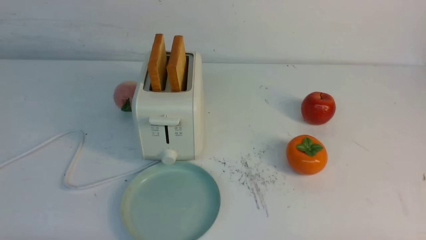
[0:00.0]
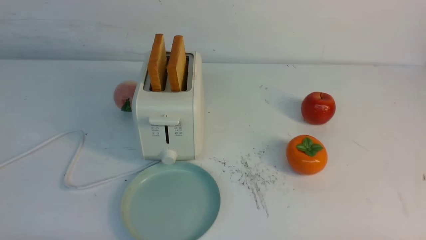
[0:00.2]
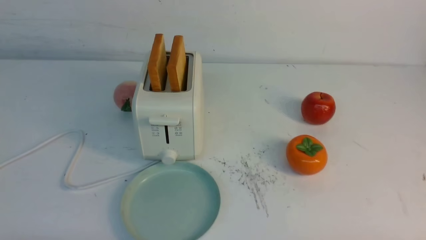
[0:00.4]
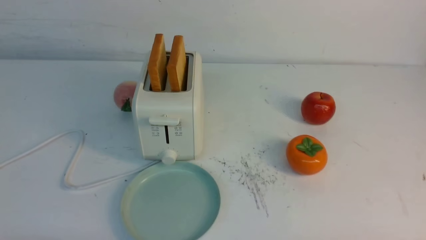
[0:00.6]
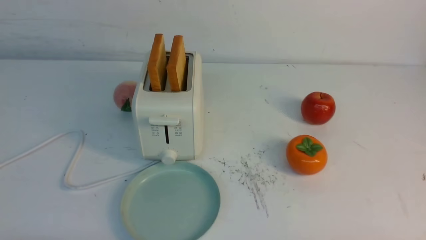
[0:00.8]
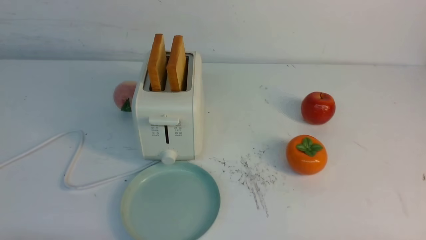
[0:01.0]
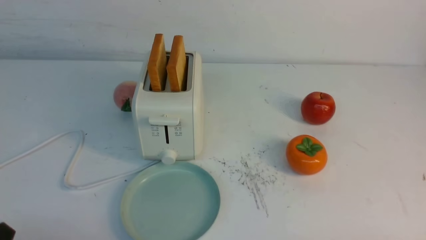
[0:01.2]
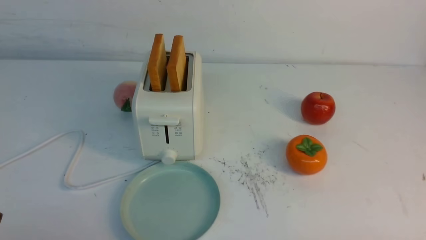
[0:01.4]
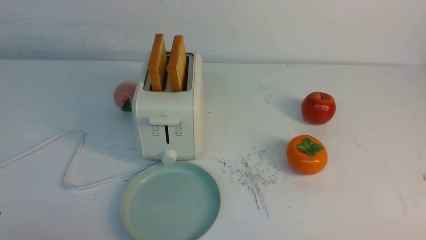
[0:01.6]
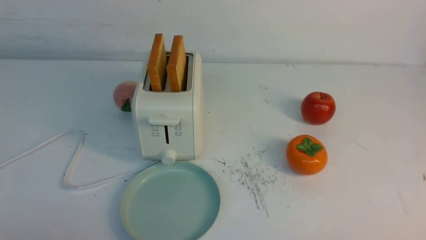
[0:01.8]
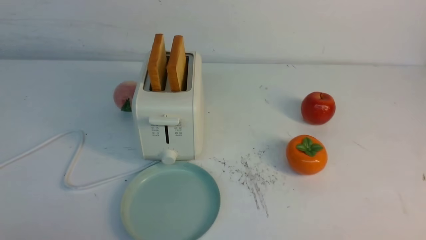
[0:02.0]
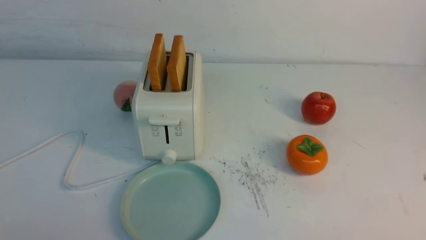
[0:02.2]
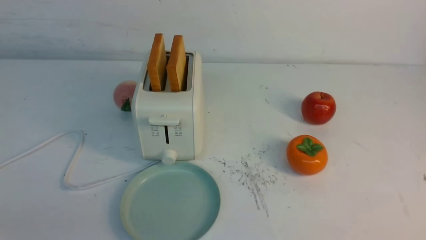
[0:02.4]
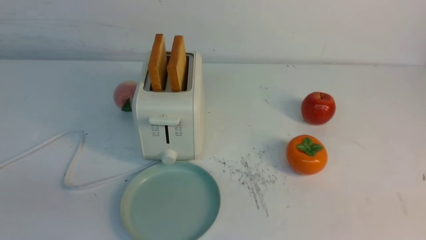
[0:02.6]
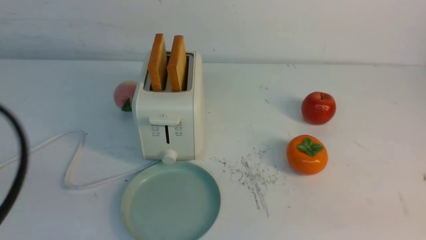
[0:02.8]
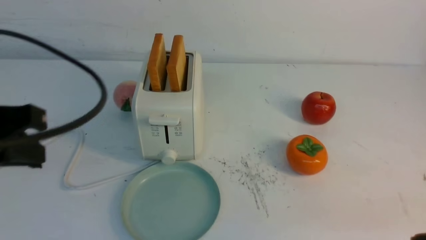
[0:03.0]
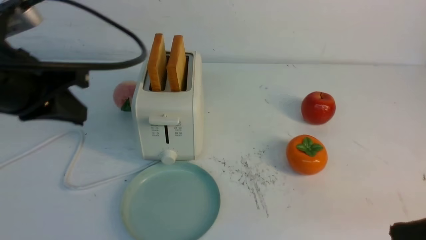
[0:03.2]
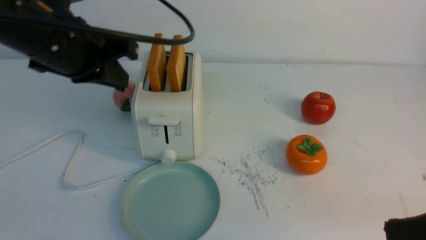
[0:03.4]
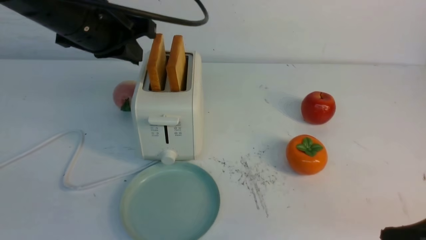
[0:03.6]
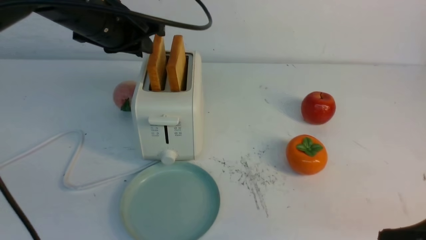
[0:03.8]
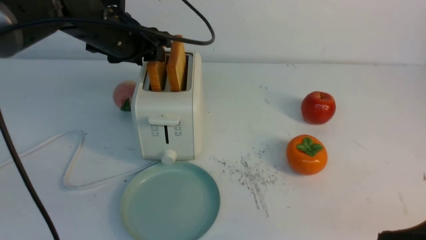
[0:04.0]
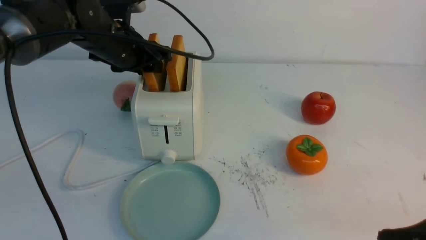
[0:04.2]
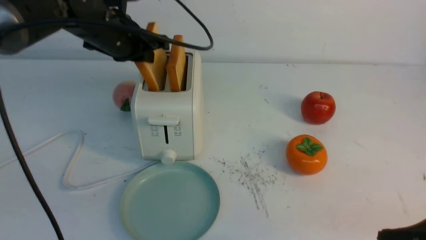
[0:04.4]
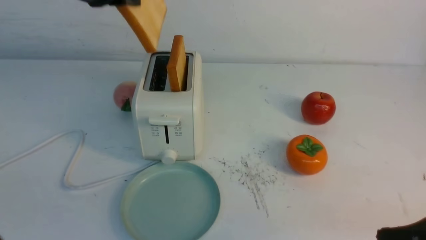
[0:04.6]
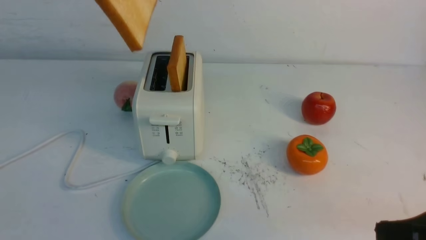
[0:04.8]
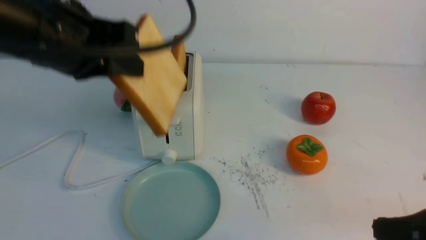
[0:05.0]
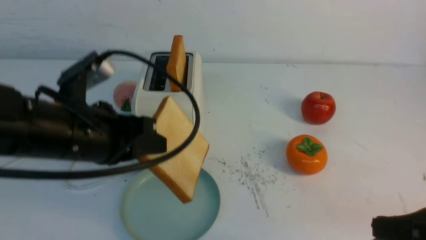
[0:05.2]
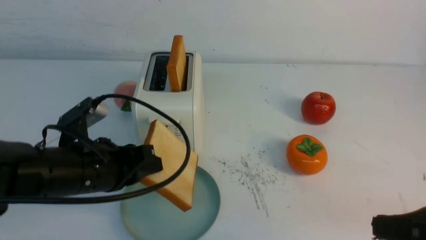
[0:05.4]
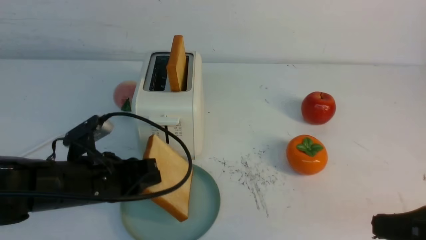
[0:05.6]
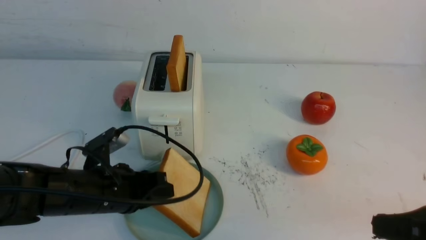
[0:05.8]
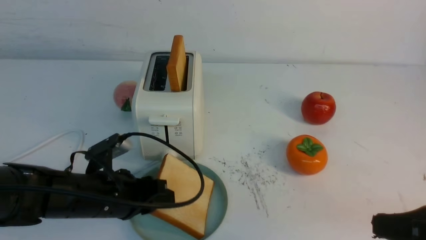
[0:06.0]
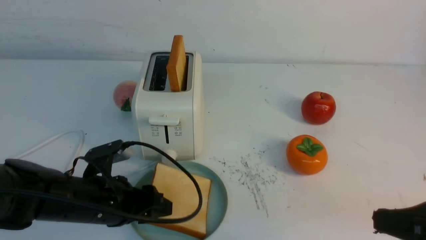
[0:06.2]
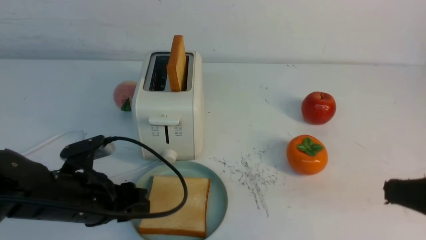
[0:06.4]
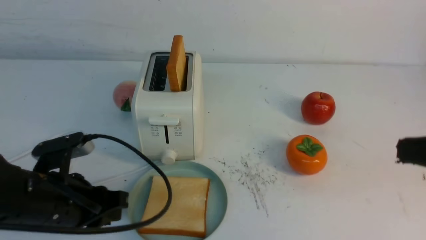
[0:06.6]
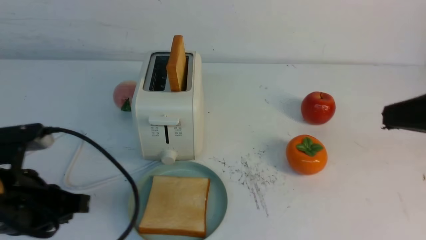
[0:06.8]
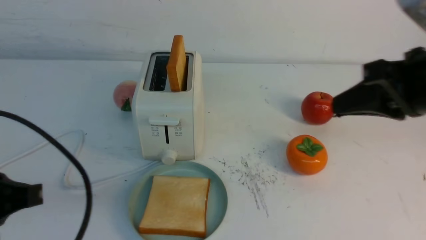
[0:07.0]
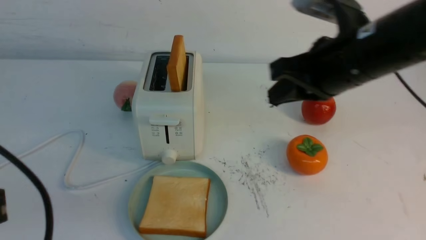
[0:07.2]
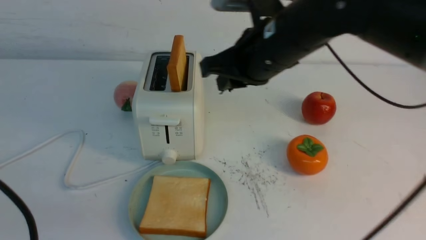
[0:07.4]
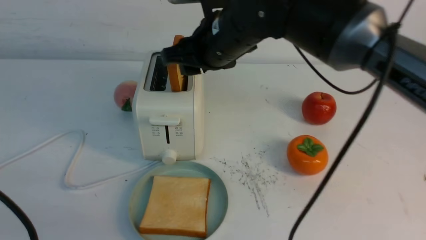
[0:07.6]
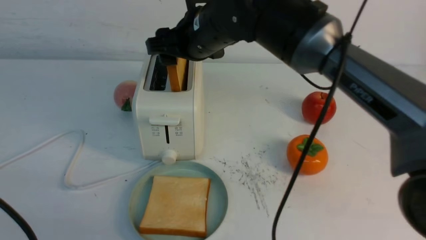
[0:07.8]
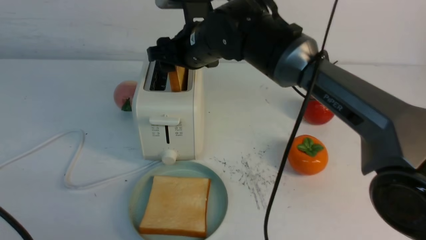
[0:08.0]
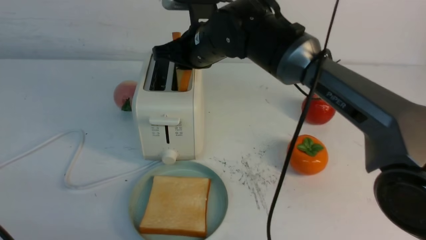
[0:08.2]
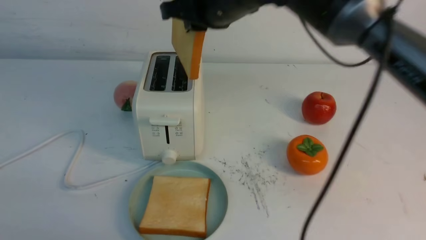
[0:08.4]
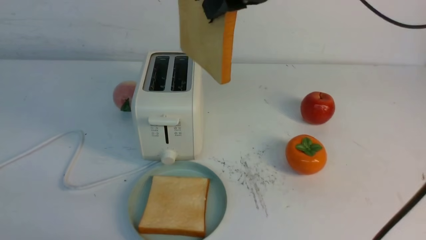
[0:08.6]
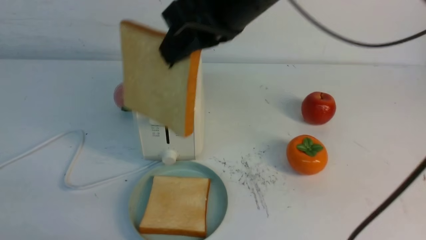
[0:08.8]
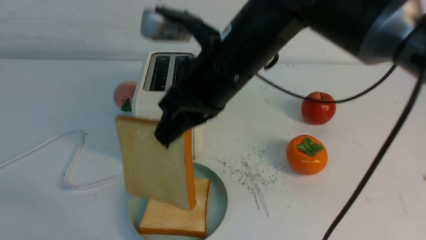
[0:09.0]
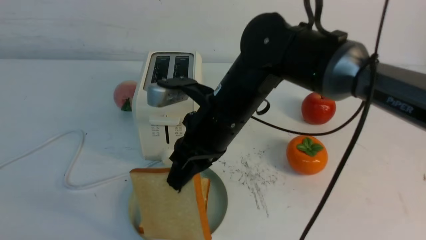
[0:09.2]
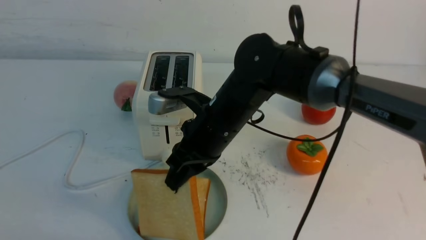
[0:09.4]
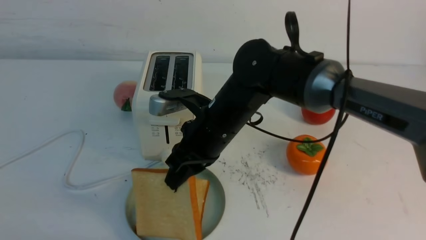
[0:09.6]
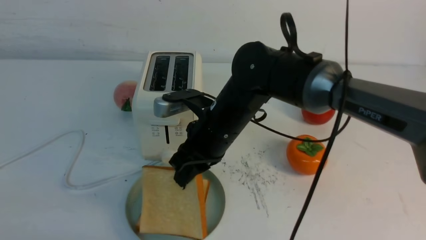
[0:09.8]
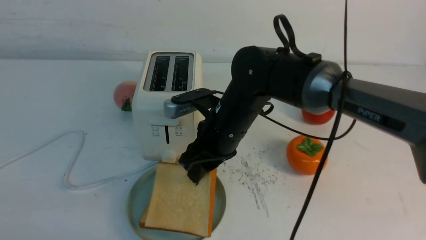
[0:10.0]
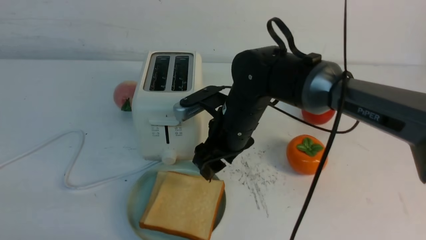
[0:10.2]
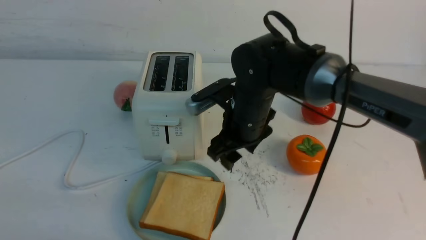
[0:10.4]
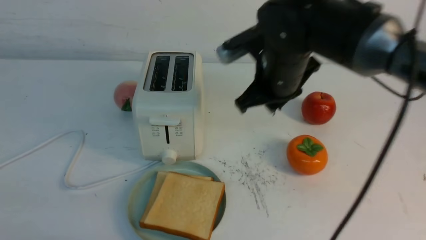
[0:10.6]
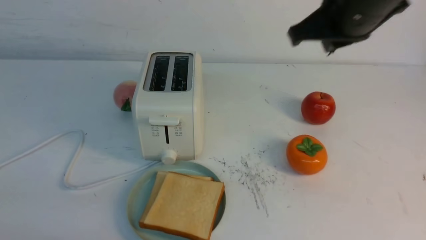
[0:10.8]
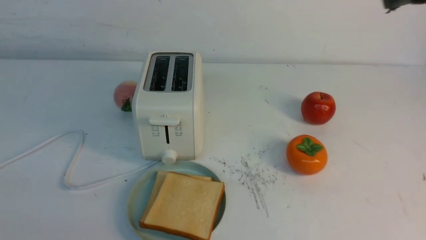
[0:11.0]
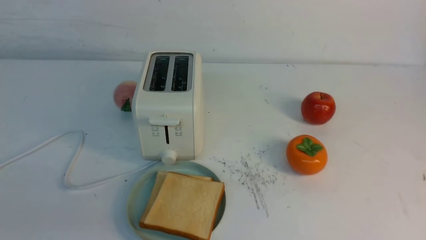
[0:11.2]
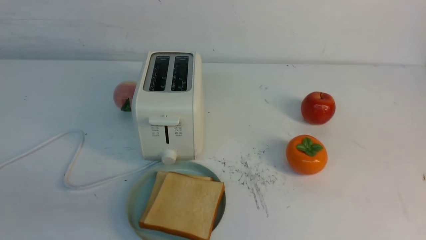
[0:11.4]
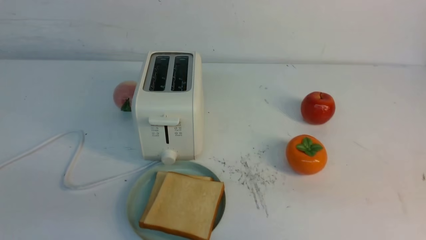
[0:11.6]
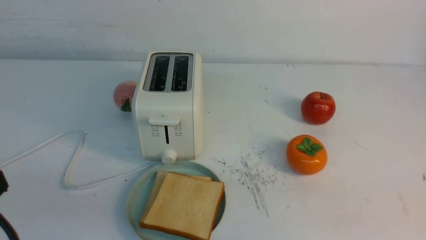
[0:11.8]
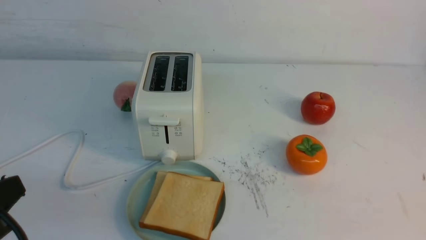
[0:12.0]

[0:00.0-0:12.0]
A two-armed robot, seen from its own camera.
Task of the whole recording: take toasted bread from bread machine on white table place on plate.
Step, 0:00.0 to 0:04.4: use the left arm to take out a slice of bread.
Step, 0:04.6 to 0:06.4: use the left arm to put a slice of bread into the empty plate.
Step, 0:06.6 to 0:08.2: use the right arm to take out a slice of bread.
Step, 0:08.4 to 0:10.2: use the right arm to put a slice of bread into the plate.
0:01.6 to 0:03.0: The left gripper shifts about 20 cm upward and forward, and closes its fingers.
0:03.0 to 0:04.4: The left gripper goes some 20 cm forward, and opens its fingers.
0:04.4 to 0:06.0: The left gripper shifts roughly 25 cm downward and backward, and opens.
0:06.0 to 0:07.6: The left gripper goes roughly 25 cm backward, upward and to the left, and closes; the right gripper travels to the left and forward by roughly 35 cm, and opens.
0:07.6 to 0:09.0: The right gripper shifts about 5 cm backward, moves about 10 cm upward and comes back, and closes its fingers.
0:09.0 to 0:10.4: The right gripper moves downward, roughly 10 cm, and opens up.
0:10.4 to 0:12.0: The right gripper shifts about 40 cm backward and to the right, and closes.

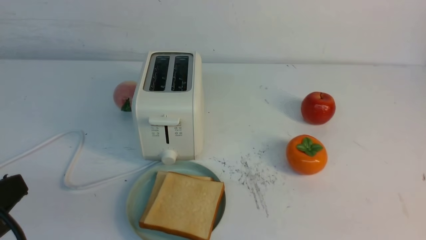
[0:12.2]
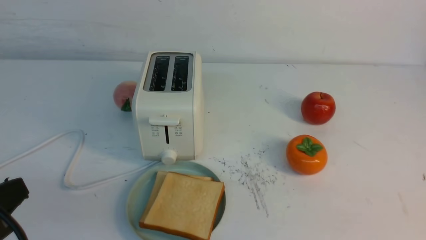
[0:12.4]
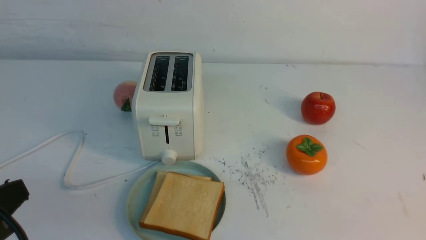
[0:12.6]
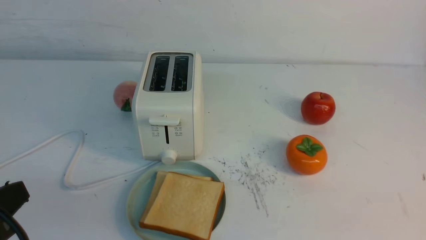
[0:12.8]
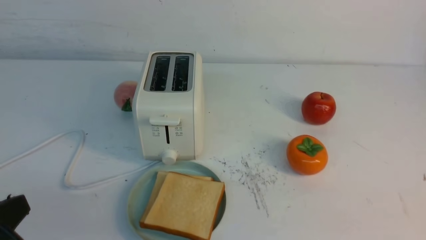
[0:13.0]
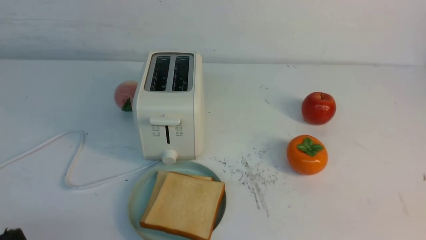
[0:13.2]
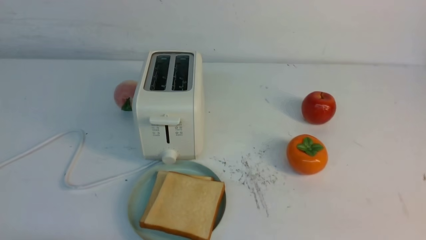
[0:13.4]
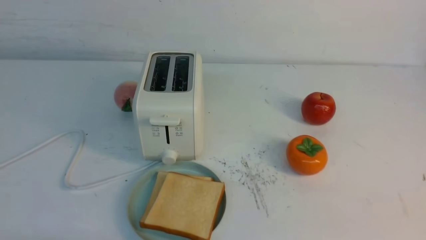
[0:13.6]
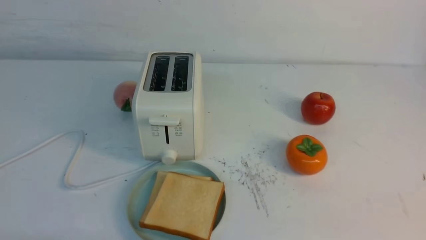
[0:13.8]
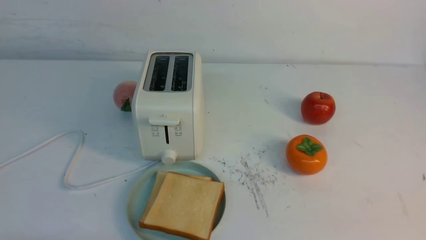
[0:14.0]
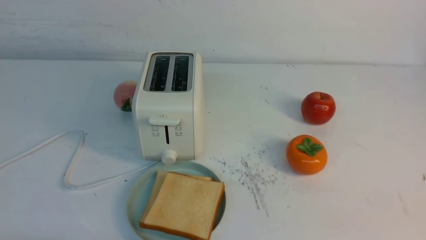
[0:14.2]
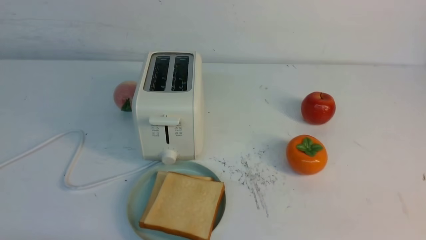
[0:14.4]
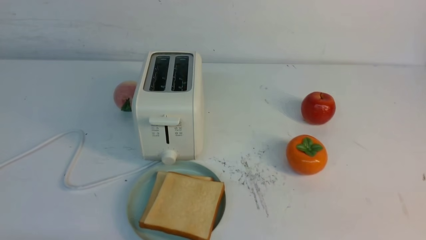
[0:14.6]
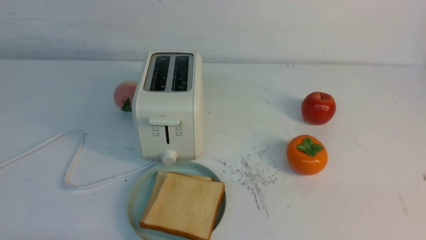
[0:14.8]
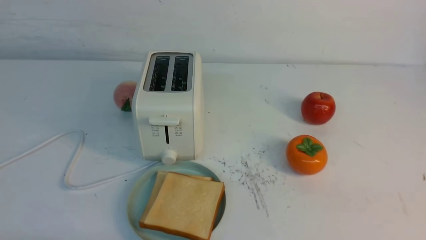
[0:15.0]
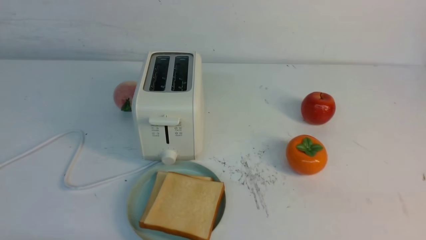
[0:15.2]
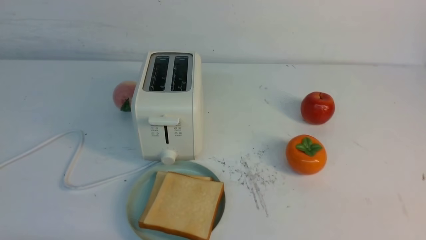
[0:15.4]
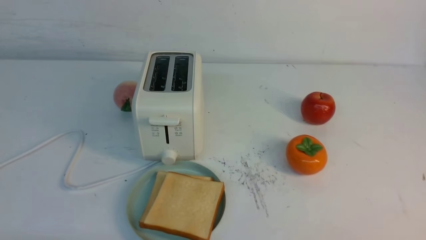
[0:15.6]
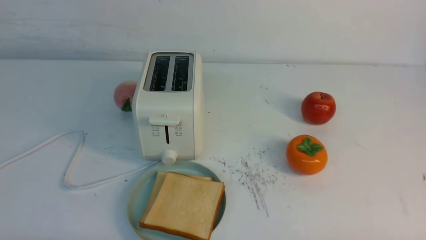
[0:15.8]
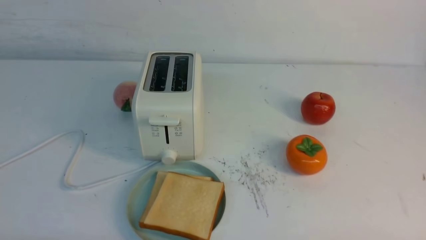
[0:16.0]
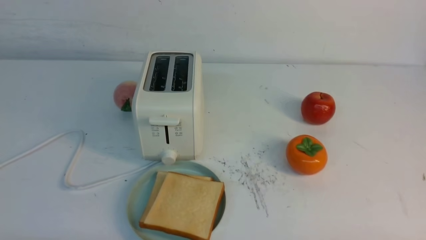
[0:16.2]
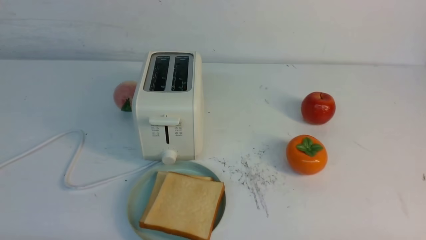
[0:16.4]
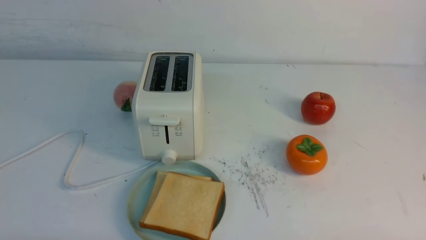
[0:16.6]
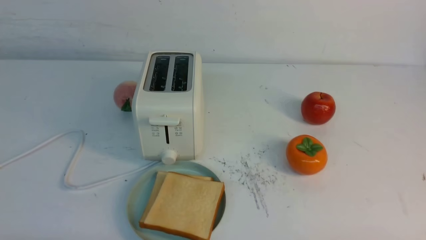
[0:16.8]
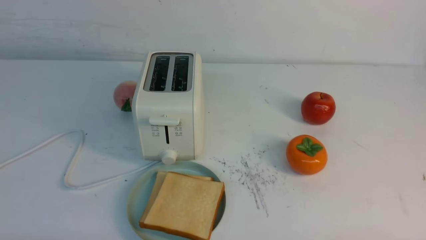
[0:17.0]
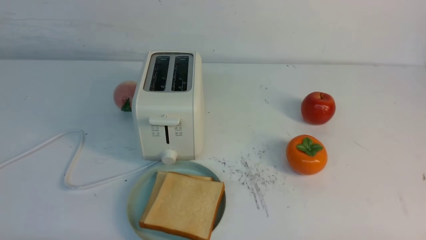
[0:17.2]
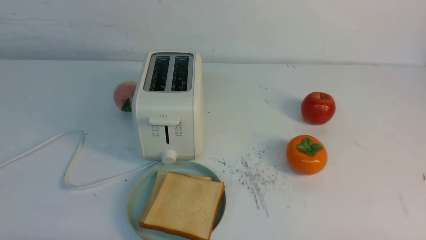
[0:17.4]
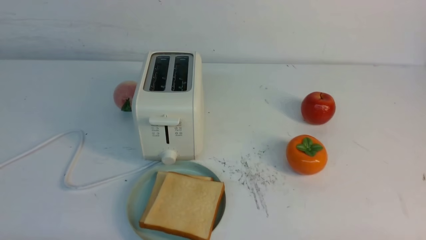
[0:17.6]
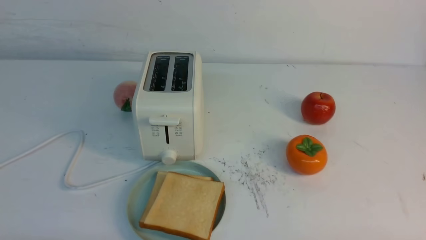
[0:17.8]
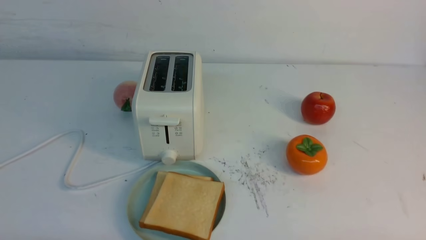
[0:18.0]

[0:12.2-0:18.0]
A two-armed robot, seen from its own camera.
Task of the whole recording: take toasted bread from bread machine on white table place on plate.
0:12.2 to 0:13.6: The left gripper moves downward, approximately 10 cm.
0:16.6 to 0:18.0: Both grippers stay put.
